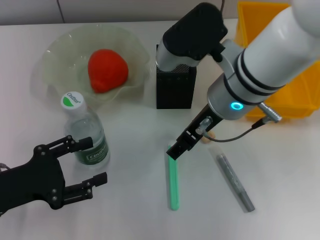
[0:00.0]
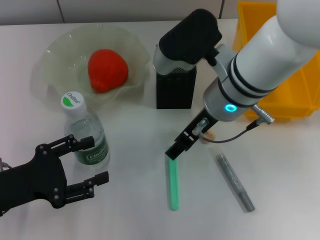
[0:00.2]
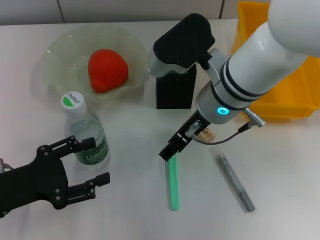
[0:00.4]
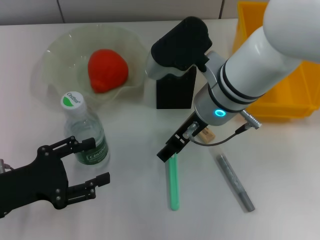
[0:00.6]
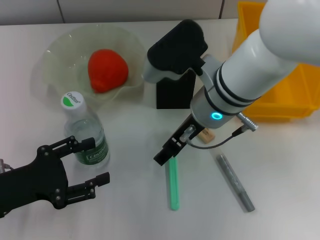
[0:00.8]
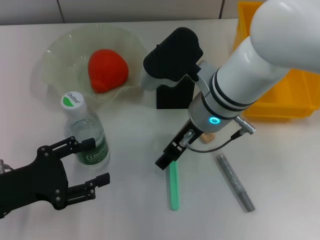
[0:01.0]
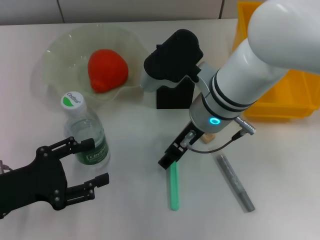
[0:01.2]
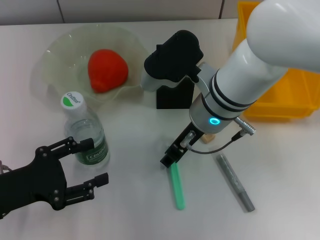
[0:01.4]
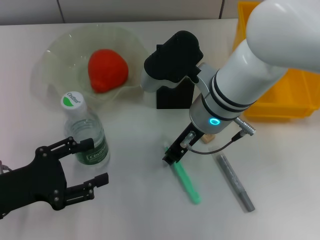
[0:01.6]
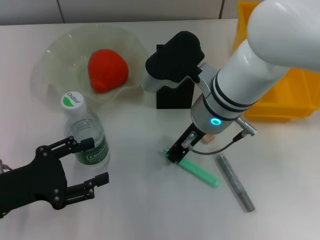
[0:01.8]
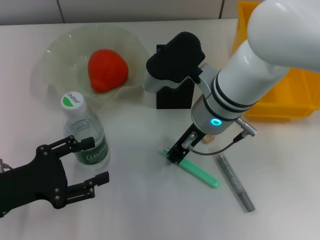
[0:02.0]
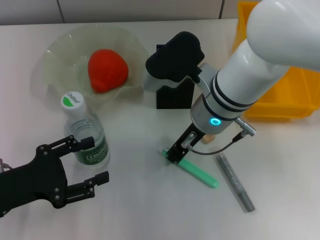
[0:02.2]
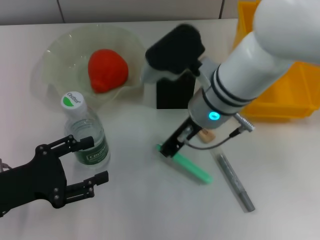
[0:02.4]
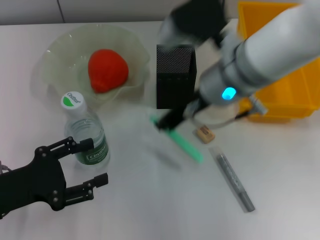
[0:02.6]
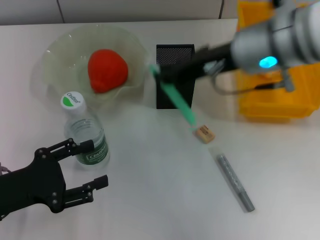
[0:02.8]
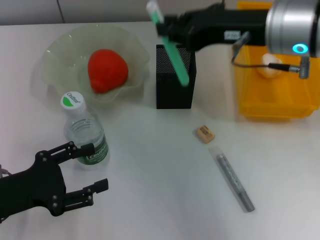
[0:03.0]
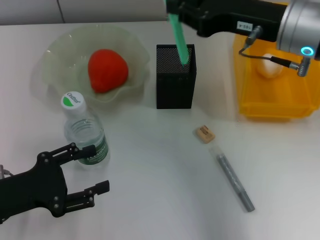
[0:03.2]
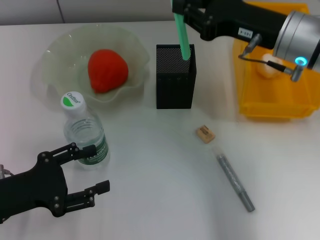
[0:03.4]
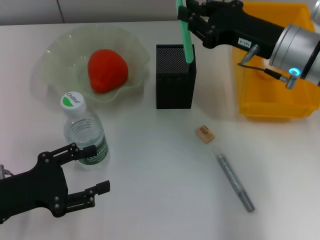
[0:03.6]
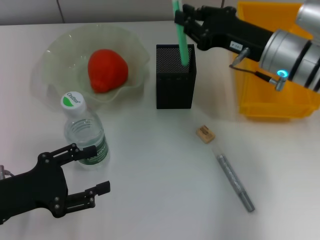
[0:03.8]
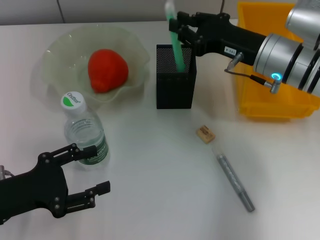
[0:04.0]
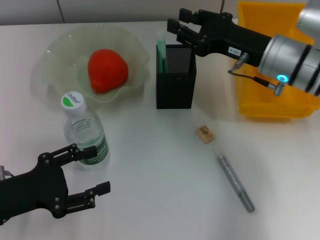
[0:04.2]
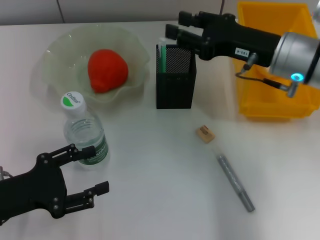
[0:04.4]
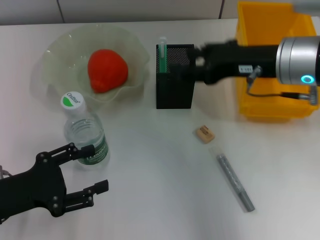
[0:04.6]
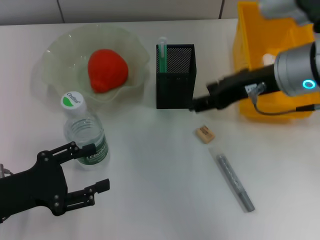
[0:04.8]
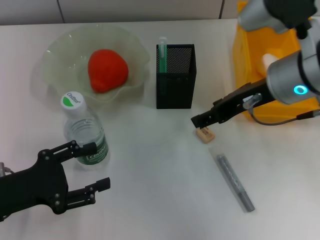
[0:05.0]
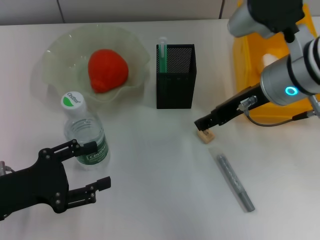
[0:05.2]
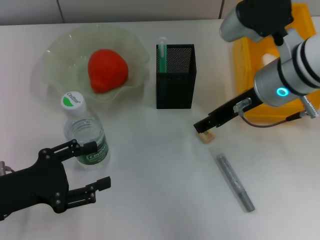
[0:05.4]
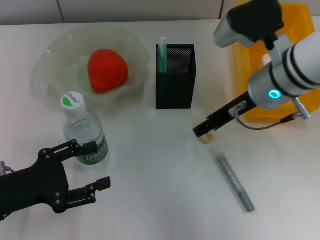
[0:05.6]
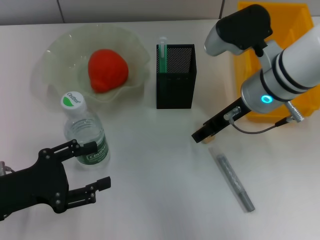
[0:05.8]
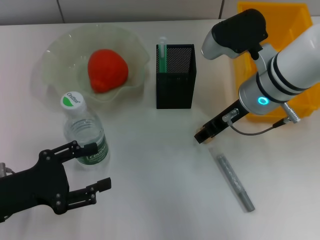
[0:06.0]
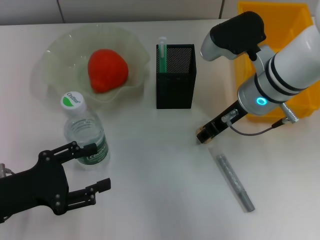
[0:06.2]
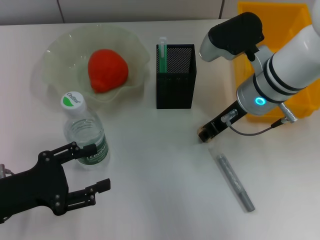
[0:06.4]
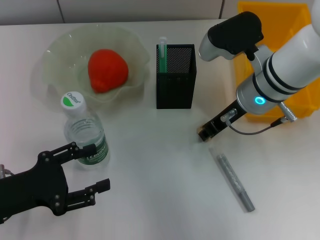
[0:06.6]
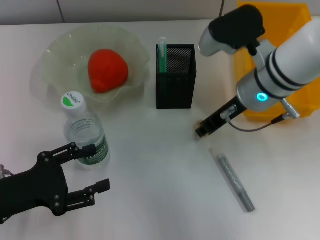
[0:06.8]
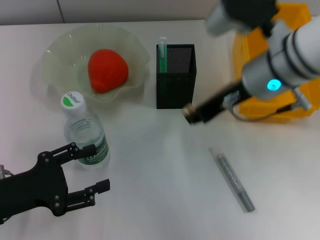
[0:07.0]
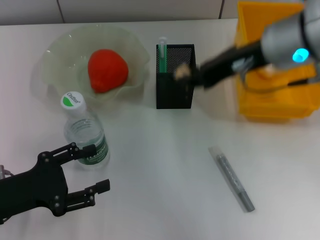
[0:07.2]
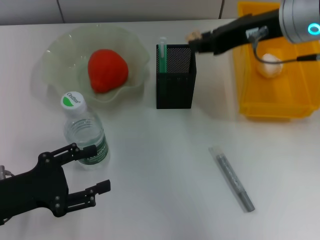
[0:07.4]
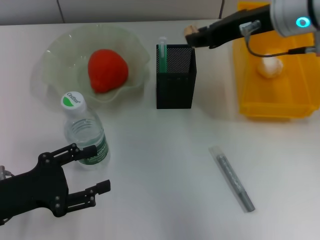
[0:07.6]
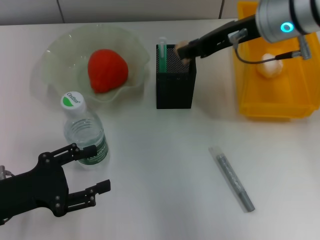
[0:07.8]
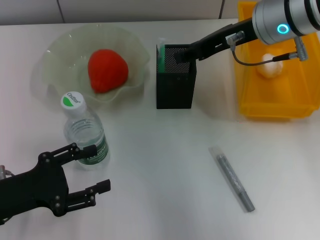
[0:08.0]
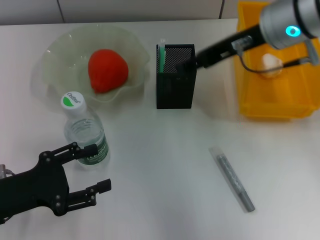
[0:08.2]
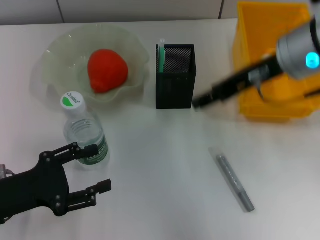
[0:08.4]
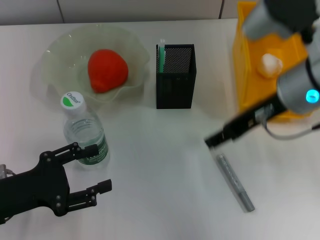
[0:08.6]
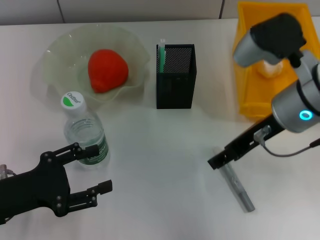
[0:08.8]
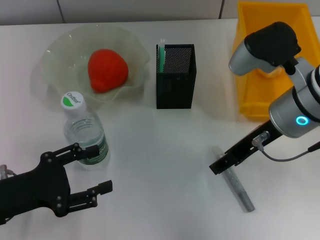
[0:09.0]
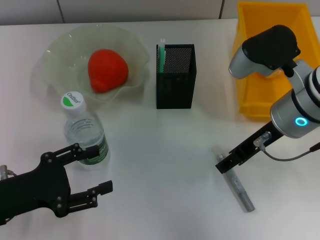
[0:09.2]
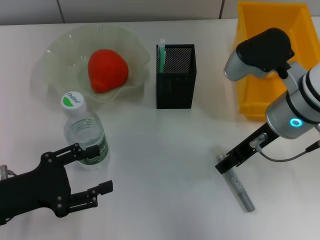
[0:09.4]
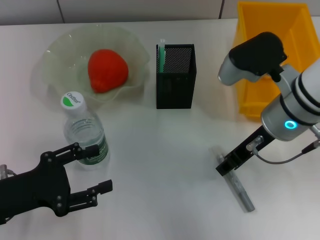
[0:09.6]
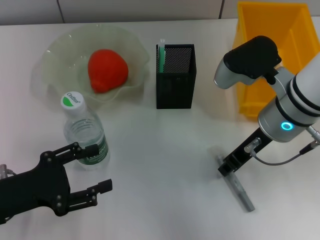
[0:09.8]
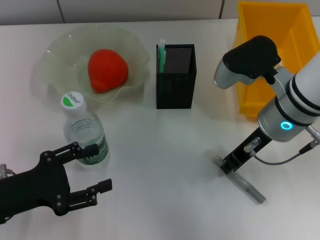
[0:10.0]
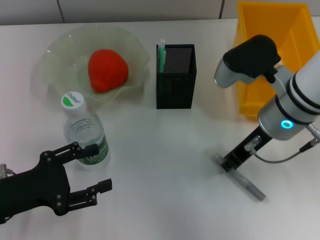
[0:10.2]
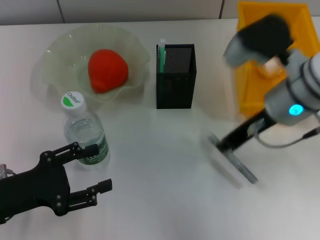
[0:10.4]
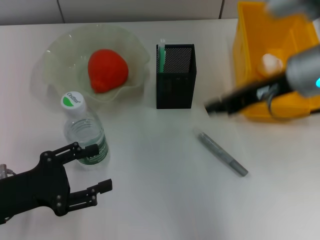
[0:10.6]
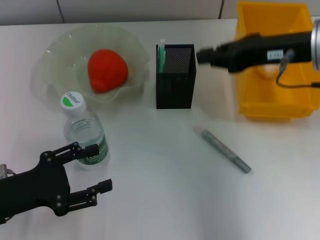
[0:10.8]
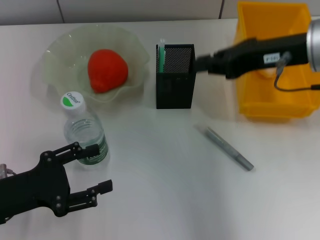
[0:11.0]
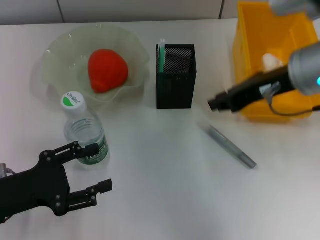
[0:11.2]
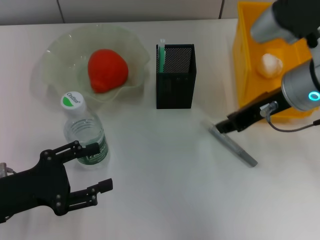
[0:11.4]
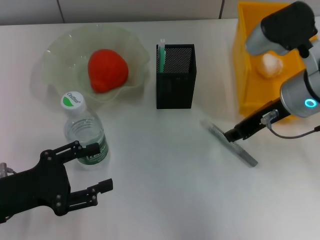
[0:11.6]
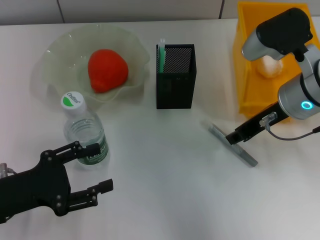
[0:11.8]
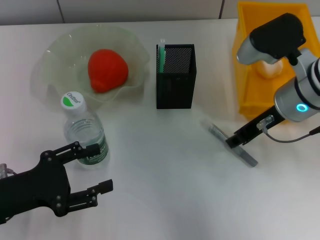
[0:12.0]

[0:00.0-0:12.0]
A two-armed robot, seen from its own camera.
Step, 0:00.0 to 0:02.0: Grab the blue utility knife with the right hand.
Step, 0:02.2 to 0:04.4: Place the blue utility knife into the pen holder with the right hand.
Step, 0:04.6 to 0:06.4: Grab the eraser with the right hand.
Step, 0:06.6 to 0:08.2: Put the eraser into the pen holder with the right hand.
0:00.0 to 0:01.6: The right gripper closes up.
0:01.6 to 0:03.0: The right gripper shifts some 15 cm to the right and upward, and closes up.
0:03.0 to 0:04.4: The right gripper is displaced downward by some 5 cm, and opens.
0:04.4 to 0:06.0: The right gripper moves about 5 cm.
0:06.0 to 0:07.6: The right gripper travels upward by some 10 cm, and closes.
0:07.6 to 0:09.0: The right gripper shifts roughly 10 cm downward and backward, and opens up.
0:09.0 to 0:10.4: The right gripper closes its fingers.
0:10.4 to 0:12.0: The right gripper goes upward and returns, roughly 5 cm each way.

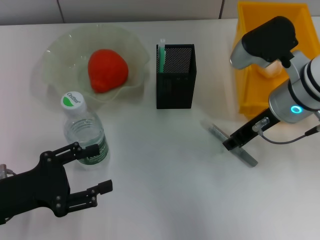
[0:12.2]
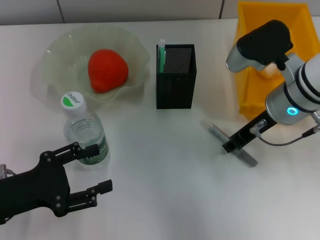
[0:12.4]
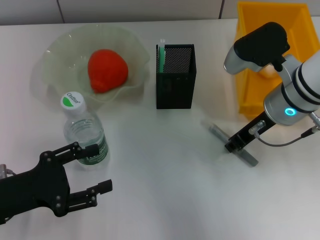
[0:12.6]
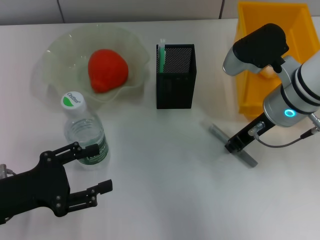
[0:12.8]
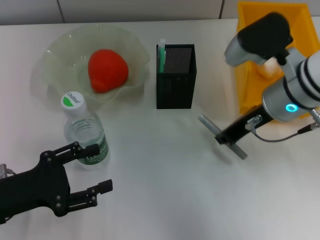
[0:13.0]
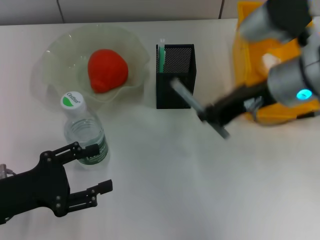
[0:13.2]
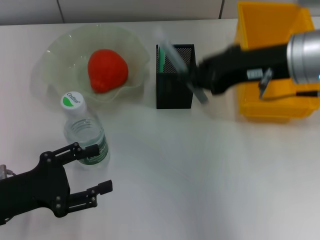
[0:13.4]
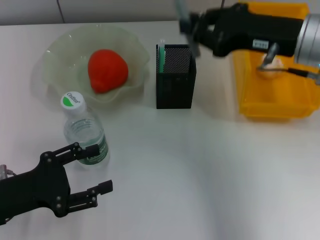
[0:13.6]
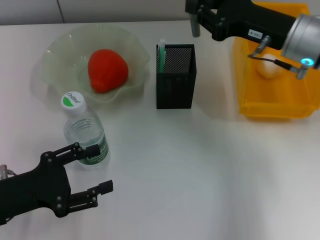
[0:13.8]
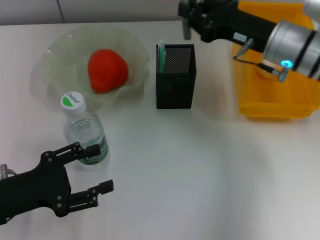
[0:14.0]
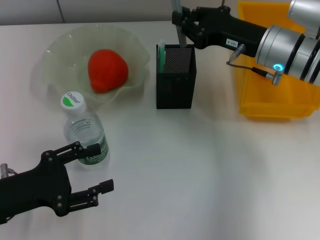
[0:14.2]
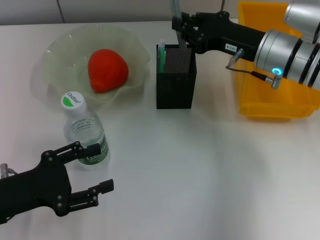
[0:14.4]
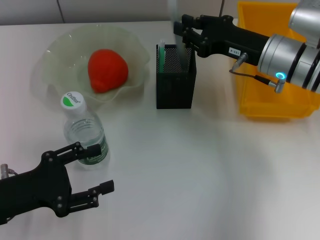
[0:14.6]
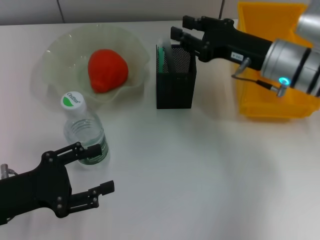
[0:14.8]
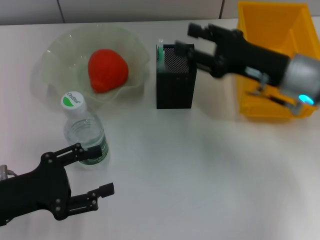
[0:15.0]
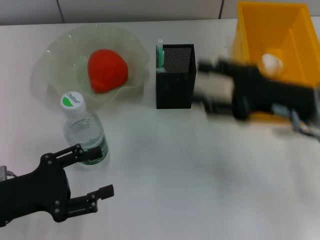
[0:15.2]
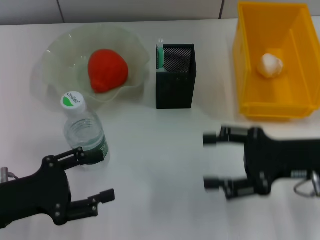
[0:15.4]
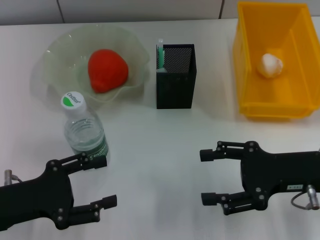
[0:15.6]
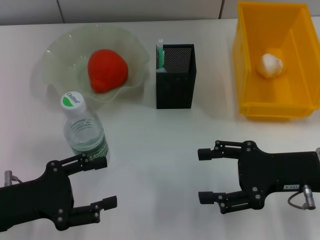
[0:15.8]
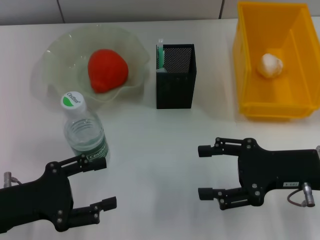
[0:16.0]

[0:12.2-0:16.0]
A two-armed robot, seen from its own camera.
Step, 0:12.8 to 0:14.8: Place the gray glue into the pen holder with the right hand.
0:12.2 to 0:13.4: The right gripper heads upward, covering about 10 cm.
0:13.4 to 0:14.8: The right gripper shifts about 10 cm downward and forward.
0:14.8 to 0:16.0: The right gripper heads backward, covering approximately 10 cm, and opens up.
